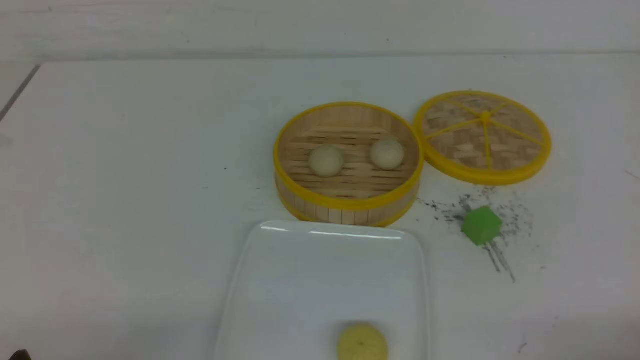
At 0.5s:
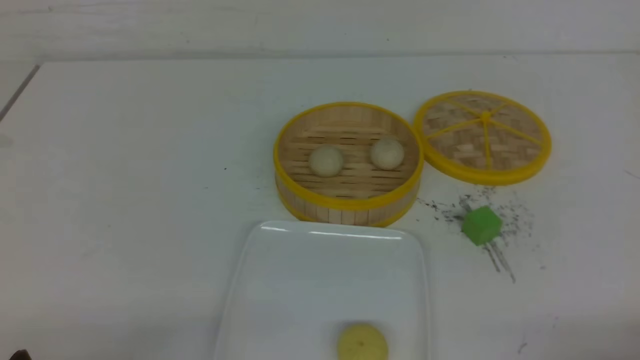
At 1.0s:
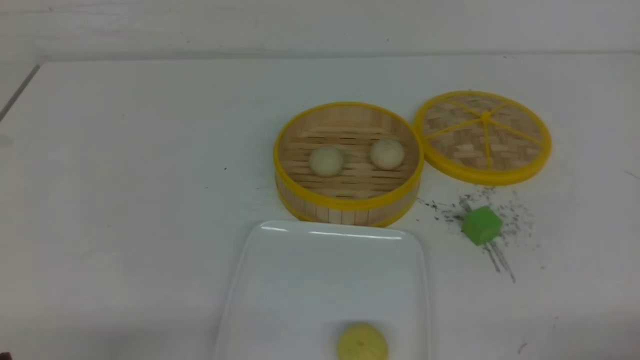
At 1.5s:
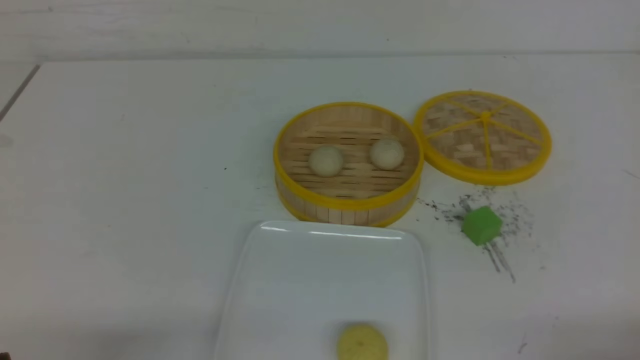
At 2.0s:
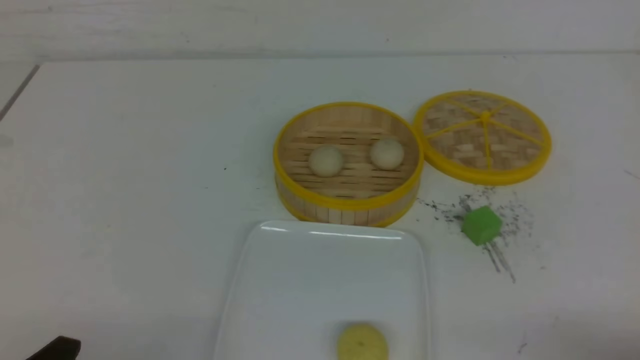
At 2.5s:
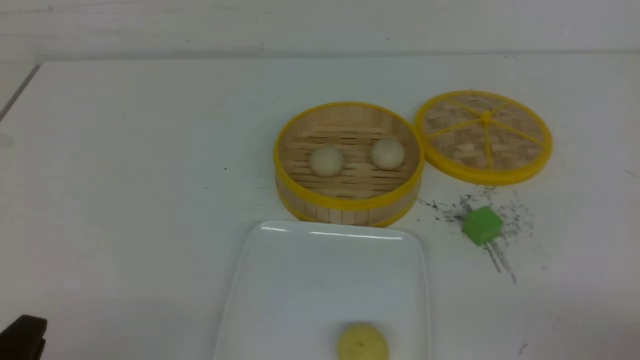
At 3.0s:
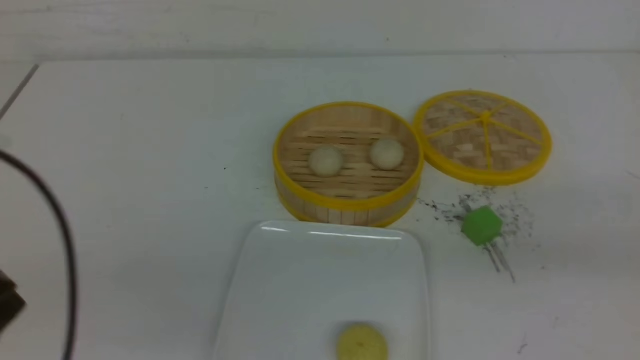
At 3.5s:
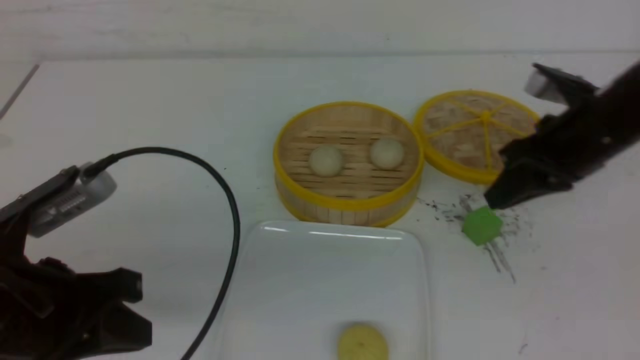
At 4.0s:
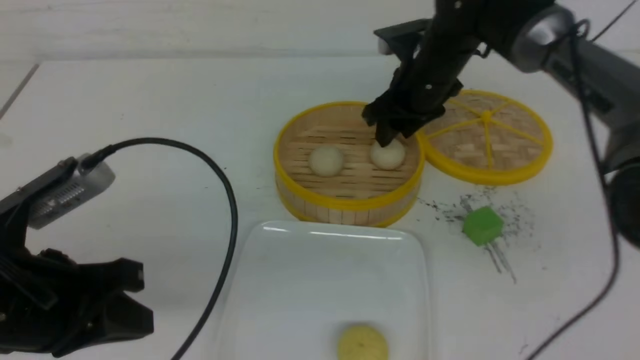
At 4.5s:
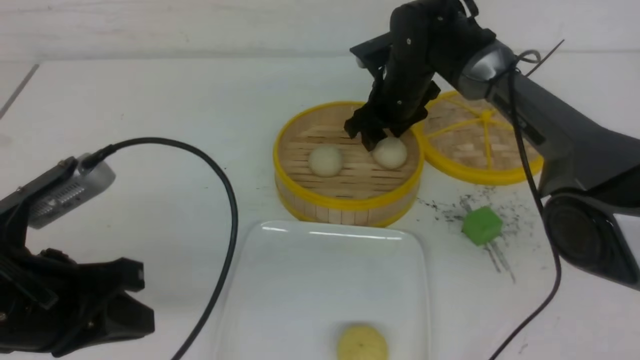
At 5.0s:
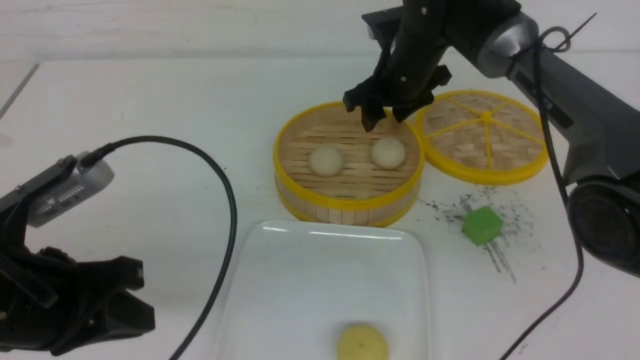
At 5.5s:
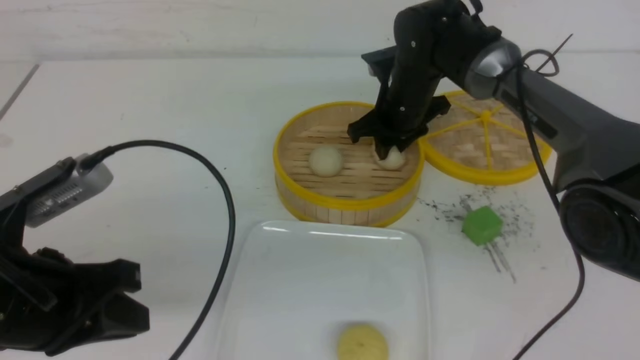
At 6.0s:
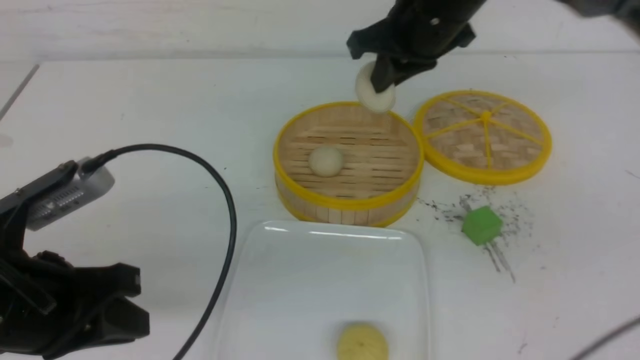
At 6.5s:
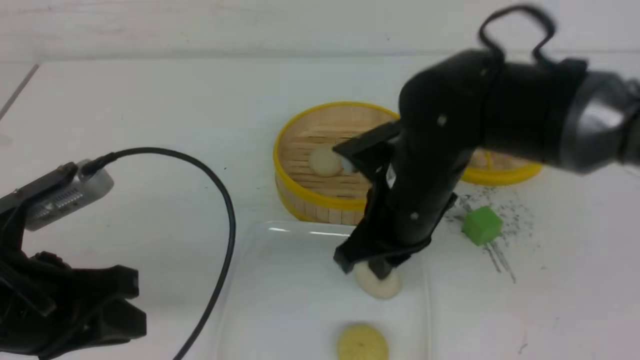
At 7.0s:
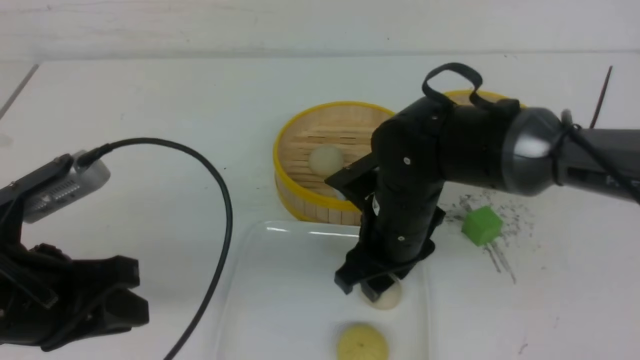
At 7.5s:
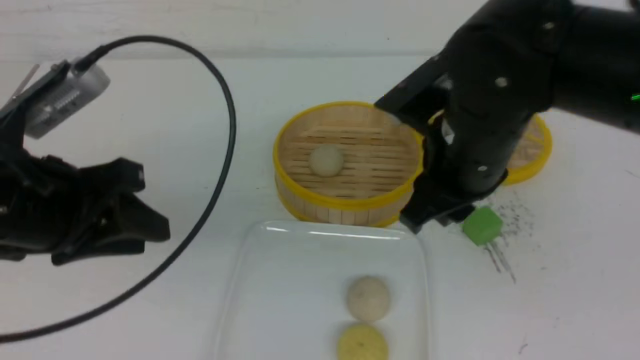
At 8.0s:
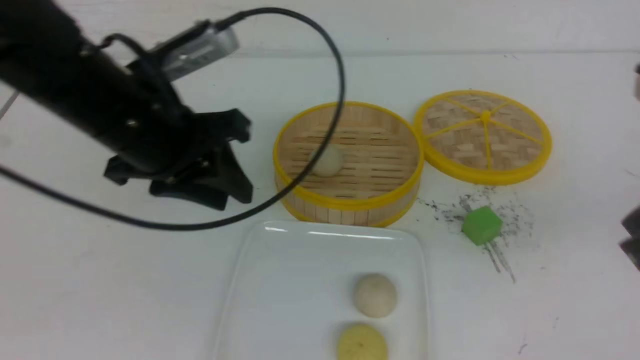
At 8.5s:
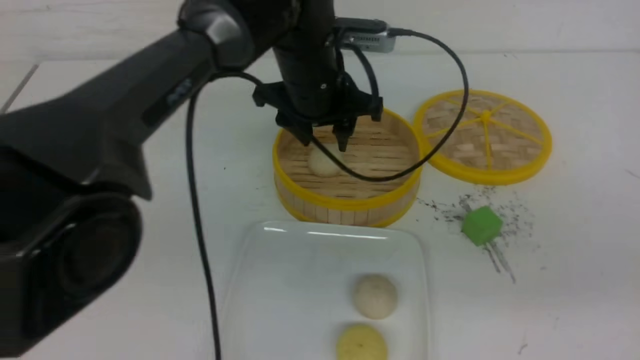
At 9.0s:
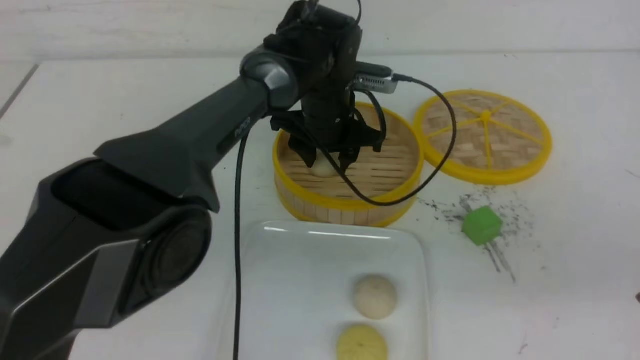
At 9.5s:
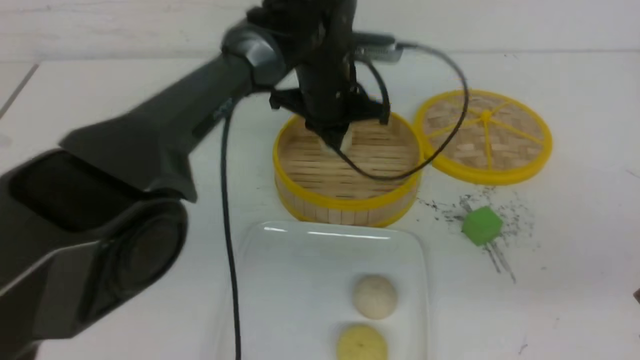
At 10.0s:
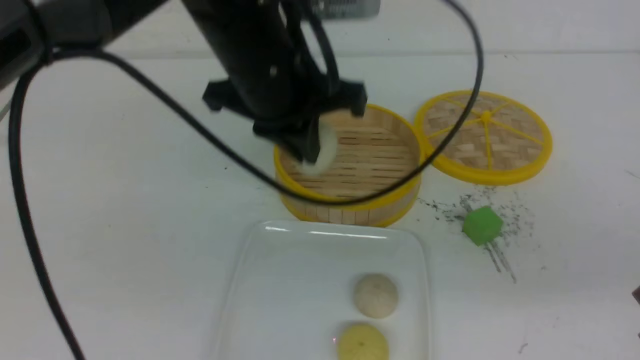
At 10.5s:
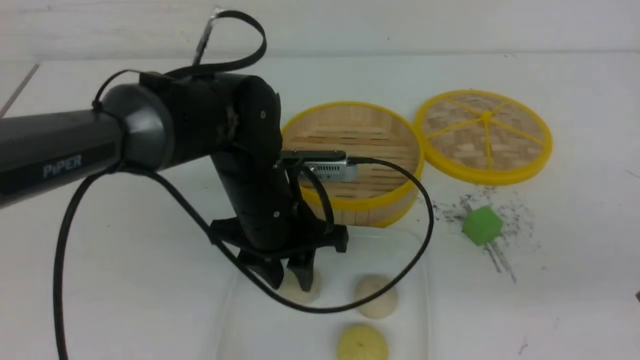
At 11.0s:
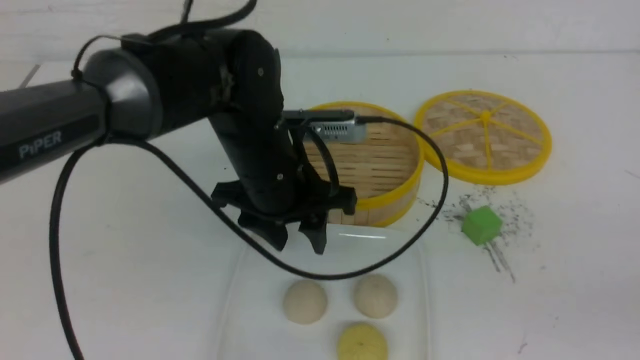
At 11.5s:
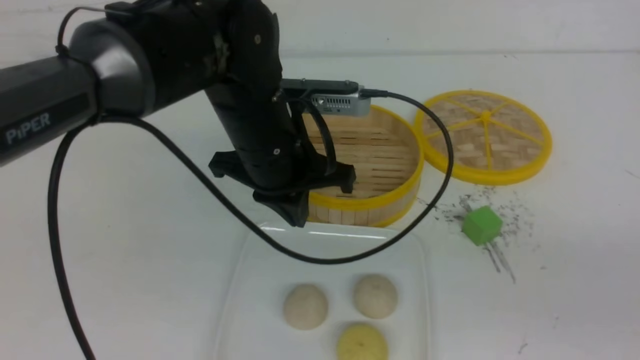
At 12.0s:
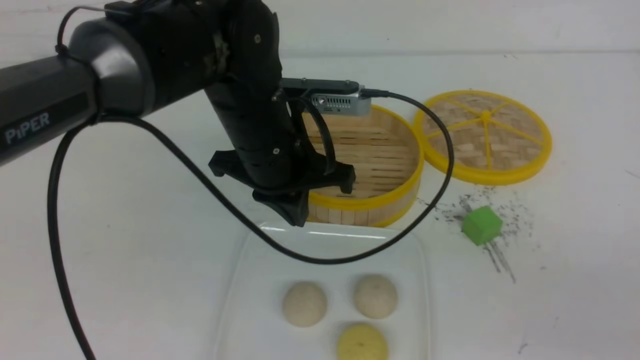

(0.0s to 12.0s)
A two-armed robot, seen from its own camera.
Step, 0.0s - 5.5s: use the right arm to grab the steamed stuffed bun that is closest to it.
Step, 6.0s - 7.0s: use the right arm to put the steamed stuffed bun into the plate.
Step, 7.5s - 9.0s: use the left arm to grab the steamed stuffed bun that is closest to it.
Step, 9.5s - 10.5s: use the left arm to put the steamed stuffed bun into the plate.
2.0s - 4.0s: The left gripper heads forward and upward, covering some 15 cm, and closes; the right gripper is displaced forward and to the left by some 50 cm, and closes, then reopens.
4.0s - 6.0s: The right gripper travels upward and backward by about 10 cm, and closes its fingers.
6.0s - 8.0s: The left gripper is displaced forward, to the right and upward by approximately 15 cm, and opens up; the right gripper moves backward and to the right, roughly 25 cm, and opens, then closes once more.
8.0s - 10.0s: The right gripper shifts by approximately 5 cm. Meanwhile the left gripper goes approximately 10 cm to the right, and closes its fingers.
10.0s - 12.0s: The left gripper opens and closes again, while the right gripper travels backward and to the right by about 10 cm.

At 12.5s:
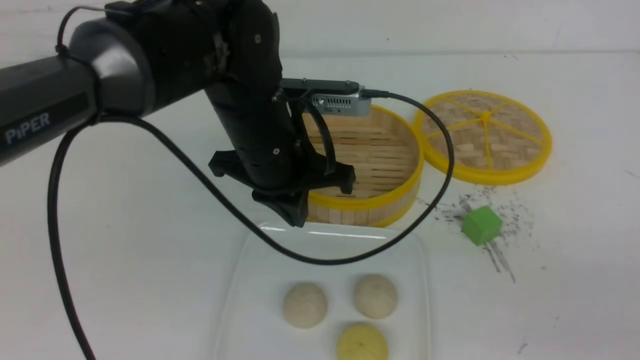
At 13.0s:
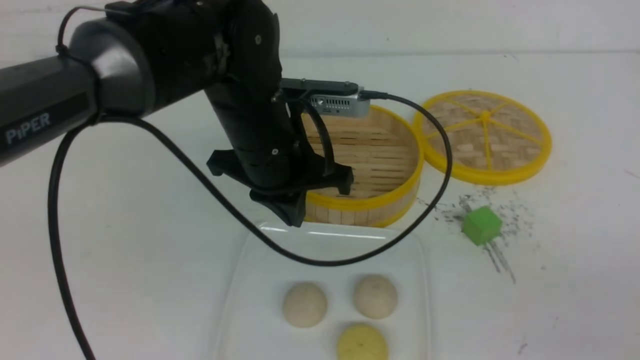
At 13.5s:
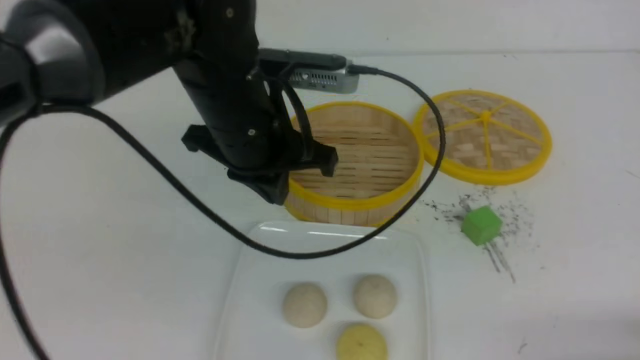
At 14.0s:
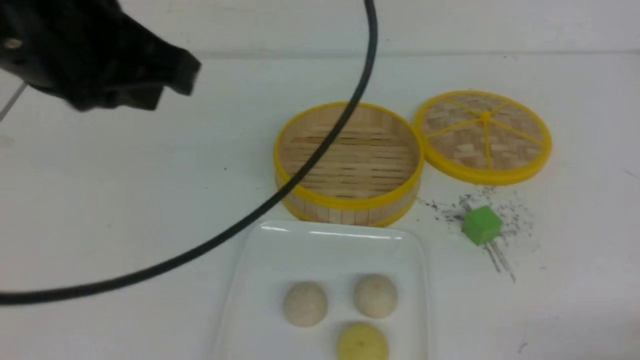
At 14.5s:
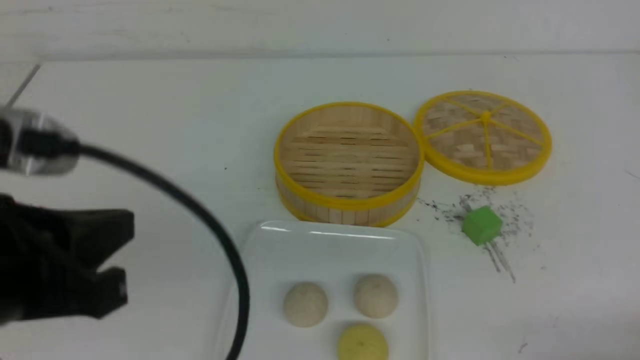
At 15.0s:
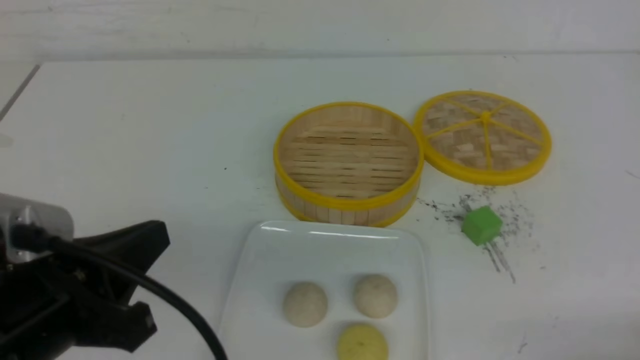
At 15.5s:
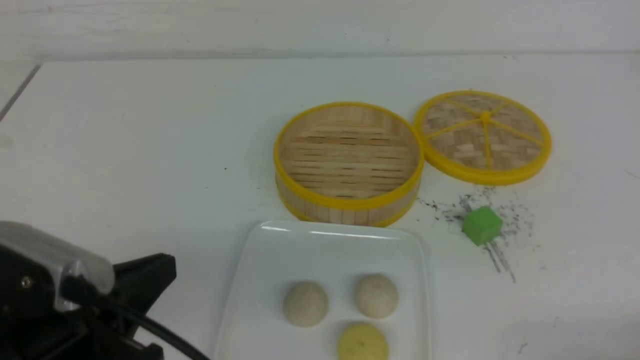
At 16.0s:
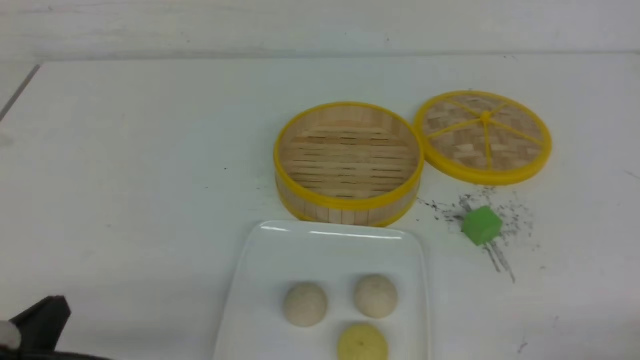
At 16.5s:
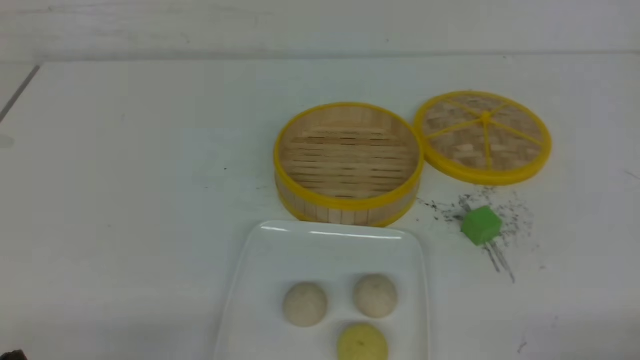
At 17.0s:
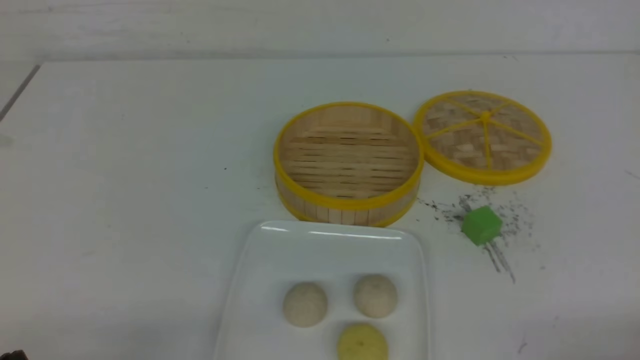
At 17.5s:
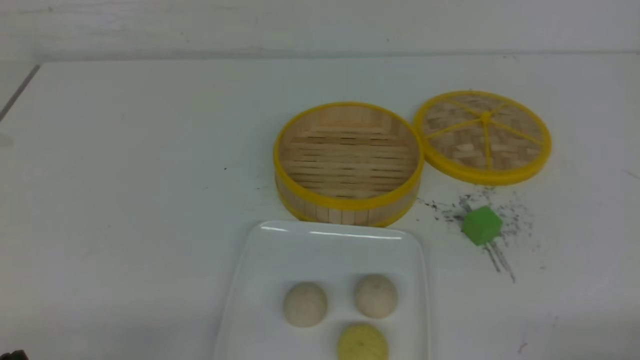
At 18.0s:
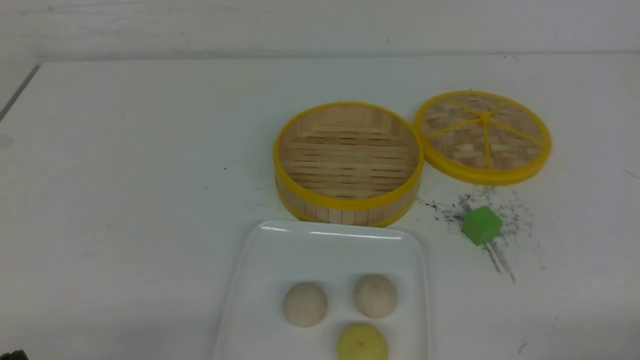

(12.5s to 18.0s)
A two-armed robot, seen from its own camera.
12.5s - 14.5s: The right gripper shifts some 10 cm downward; the left gripper heads backward and to the left, covering roughly 25 cm.
14.5s - 16.0s: The left gripper shifts roughly 15 cm downward.
16.0s - 18.0s: The grippers move only a little.
